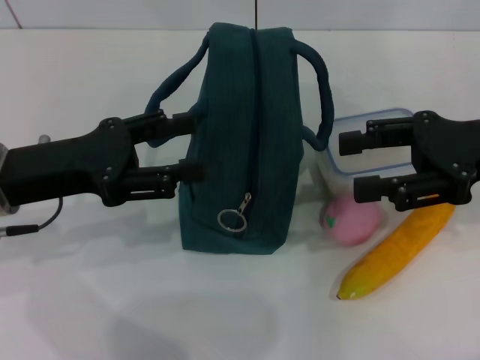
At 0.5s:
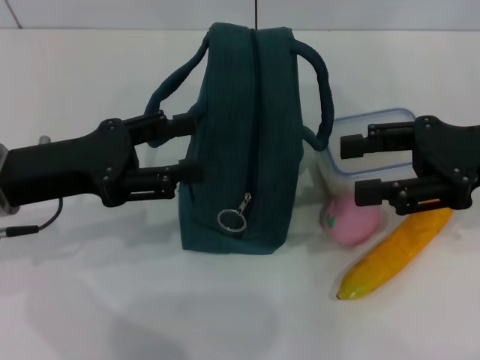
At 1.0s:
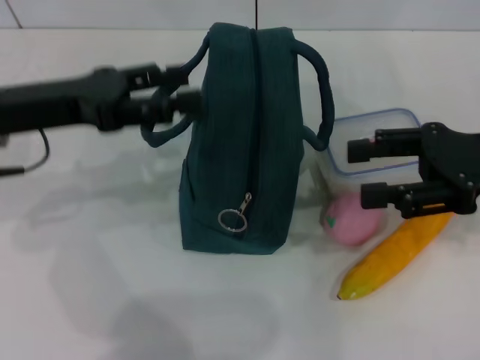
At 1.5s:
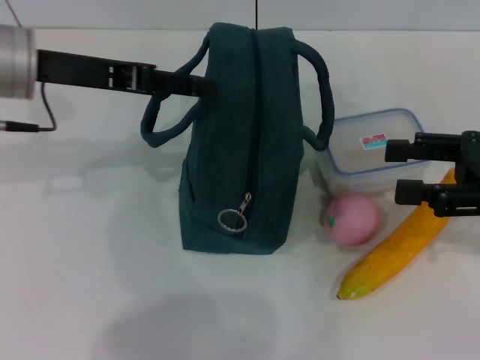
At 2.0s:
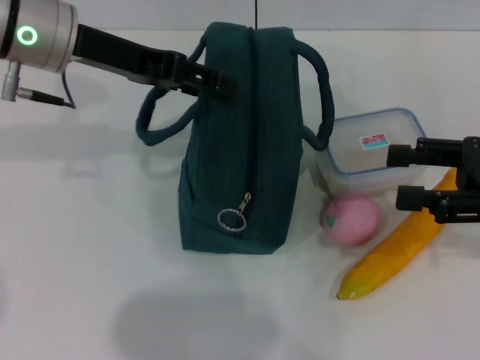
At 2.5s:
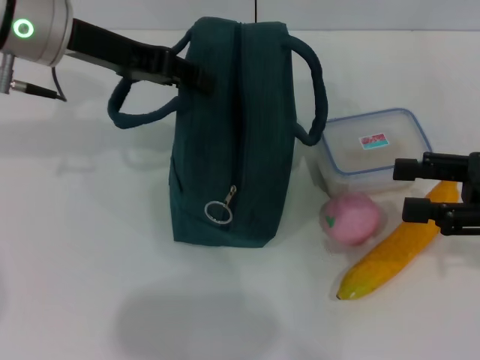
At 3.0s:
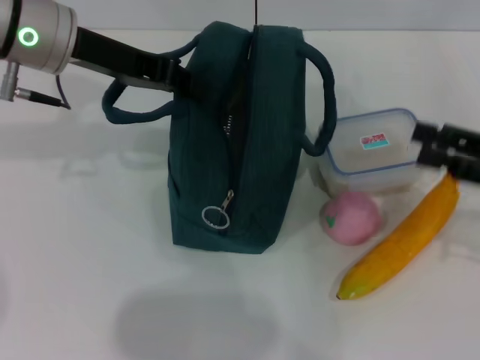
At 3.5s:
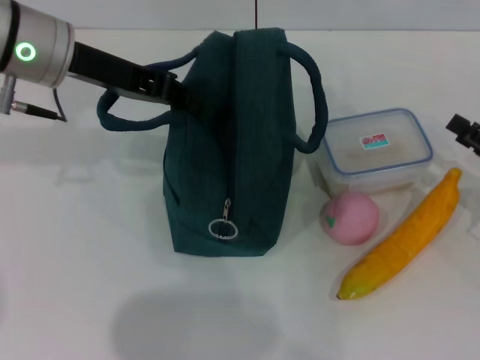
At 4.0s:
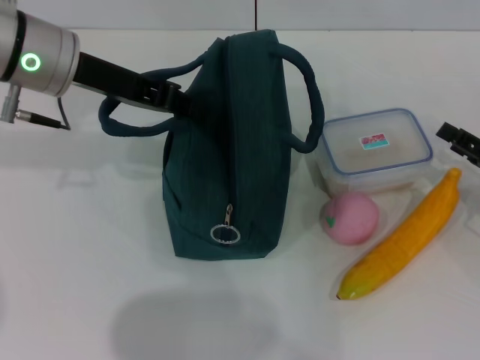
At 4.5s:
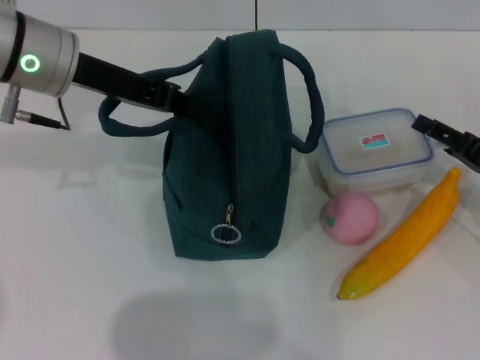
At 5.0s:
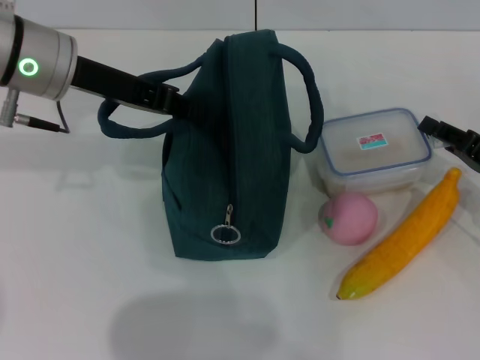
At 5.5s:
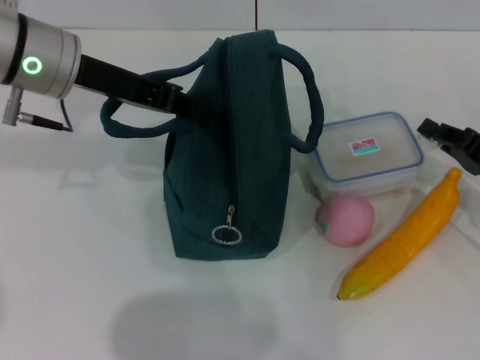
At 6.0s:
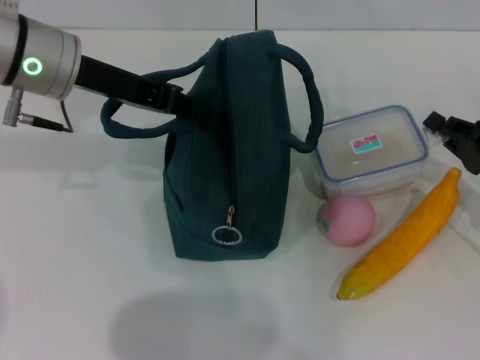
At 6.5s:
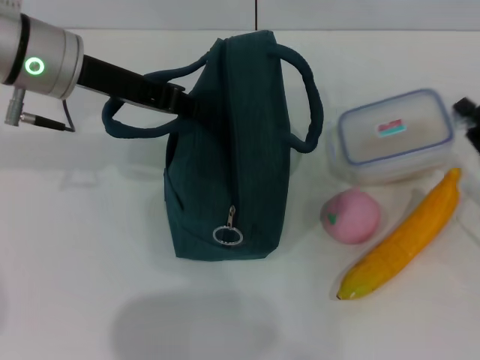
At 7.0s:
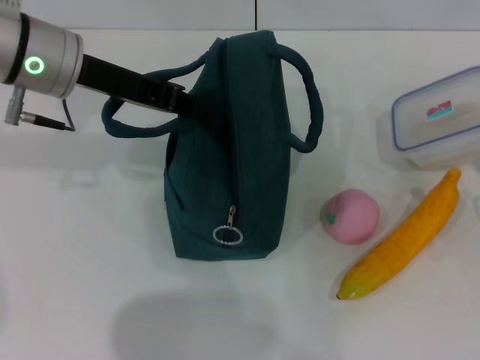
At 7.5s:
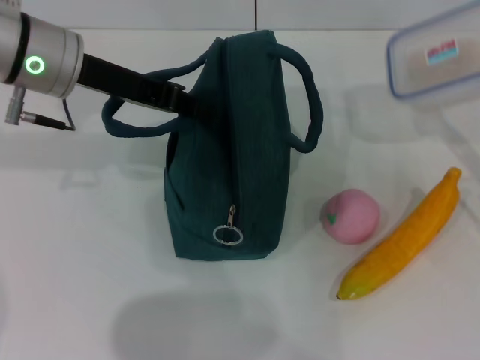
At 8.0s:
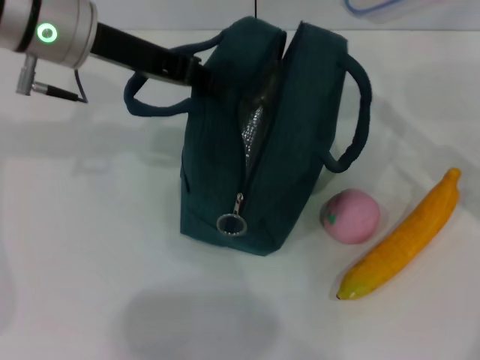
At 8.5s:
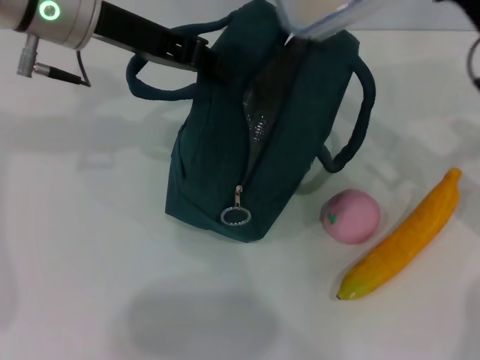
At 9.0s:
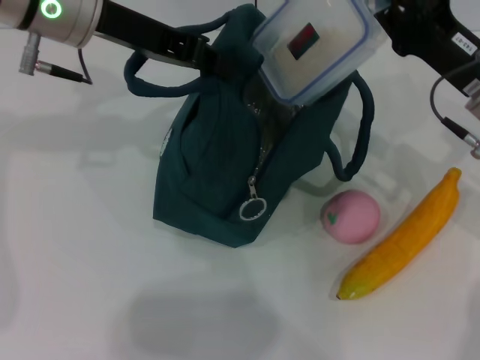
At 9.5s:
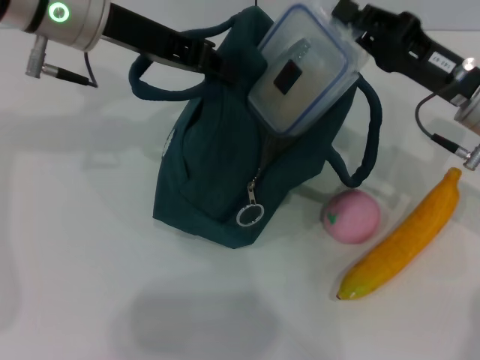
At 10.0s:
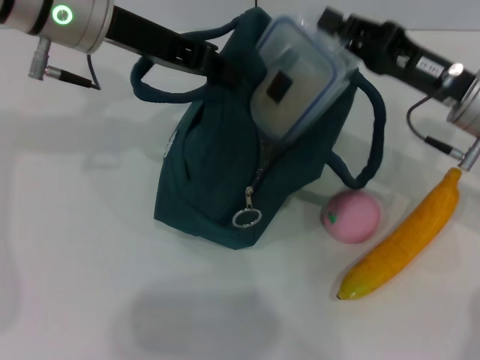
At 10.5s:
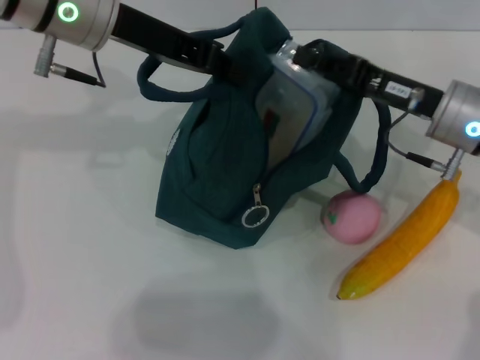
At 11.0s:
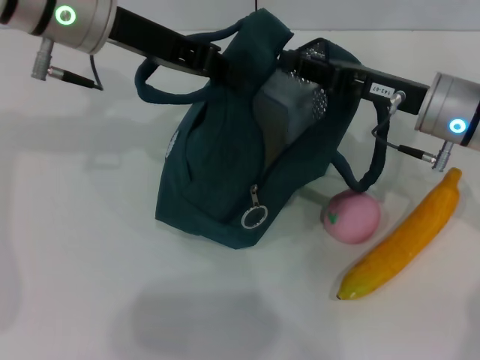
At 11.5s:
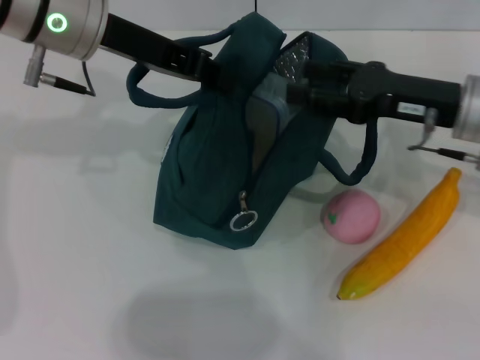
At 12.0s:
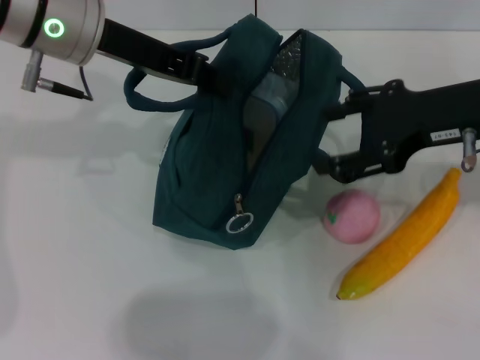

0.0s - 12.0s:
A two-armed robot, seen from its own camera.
Step, 0.0s - 3.0s: Hold the lunch bag with your left hand.
Step, 3.5s - 5.0s: Pick up the lunch box with your right hand.
Step, 6.0s - 10.5s: Place the lunch box into the lunch bag with your right hand.
0.0s - 2.0s: The right gripper shifts by about 5 cm; the left gripper is displaced forward, upward and to the right by about 15 cm.
2.0s - 4.0s: The right gripper moves downward, some 10 cm. Meanwhile the left gripper closes up.
4.0s - 6.0s: The right gripper closes its fingers.
6.0s - 8.0s: The right gripper goes about 10 cm upward.
8.0s - 10.0s: The right gripper goes about 5 cm to the left.
10.0s - 12.0s: The right gripper heads upward, covering roughly 10 cm, and opens.

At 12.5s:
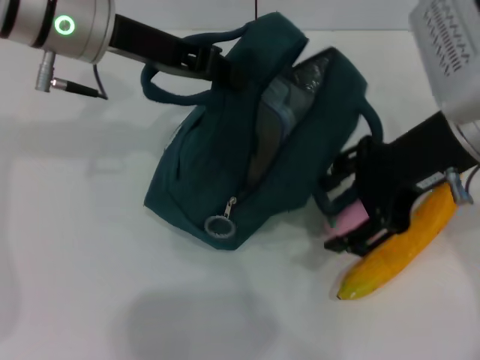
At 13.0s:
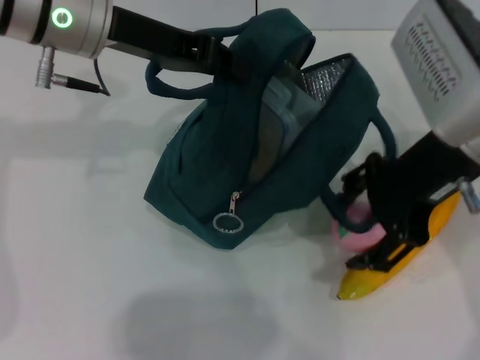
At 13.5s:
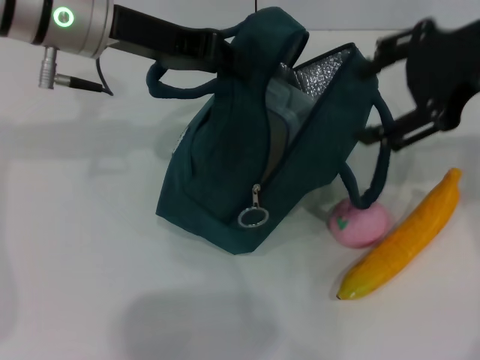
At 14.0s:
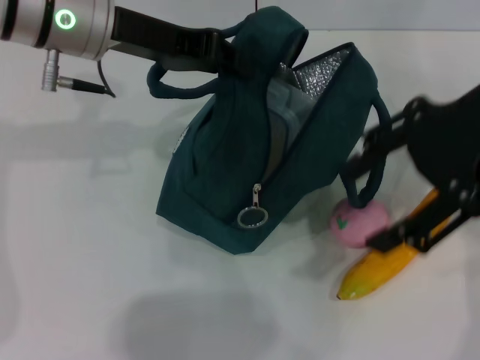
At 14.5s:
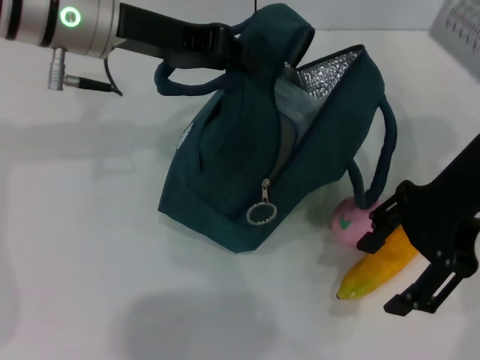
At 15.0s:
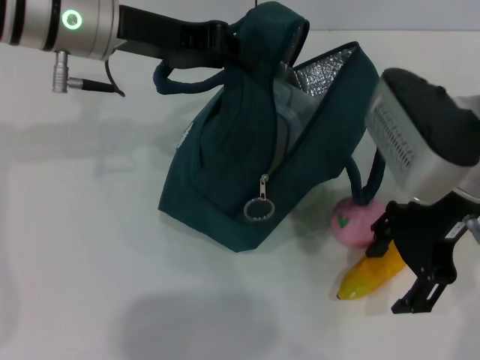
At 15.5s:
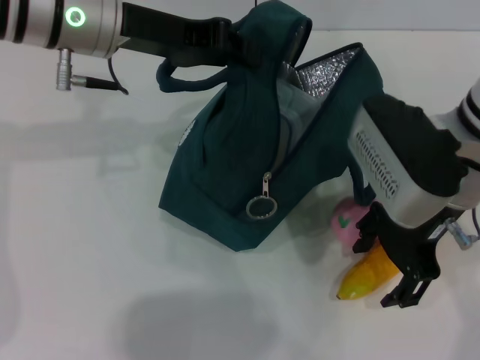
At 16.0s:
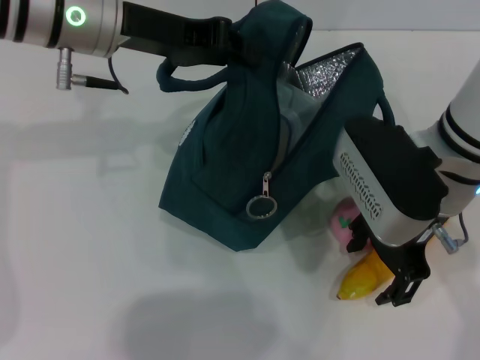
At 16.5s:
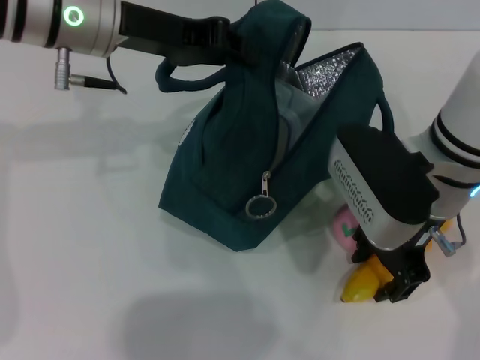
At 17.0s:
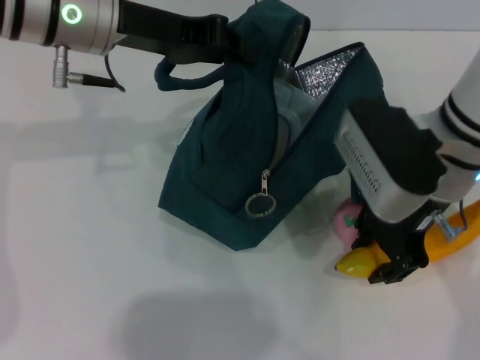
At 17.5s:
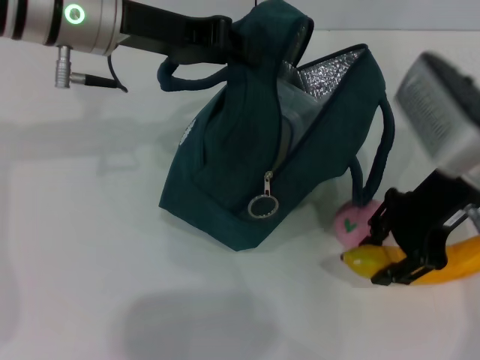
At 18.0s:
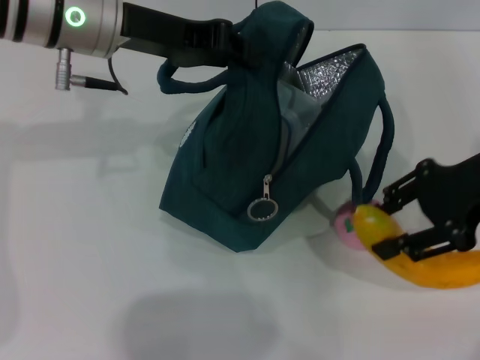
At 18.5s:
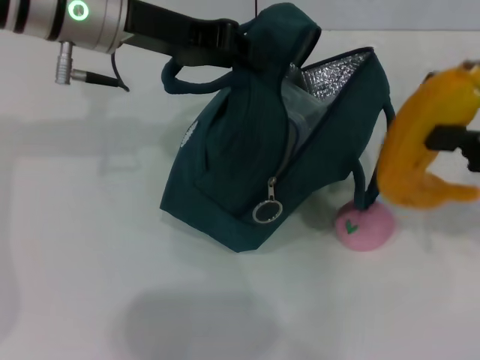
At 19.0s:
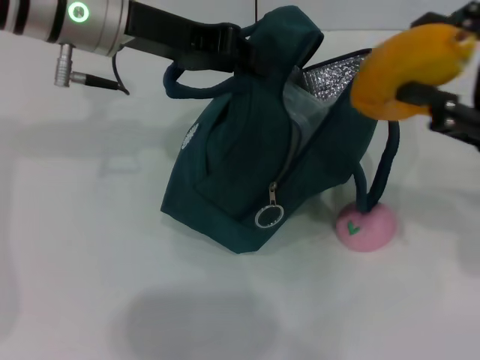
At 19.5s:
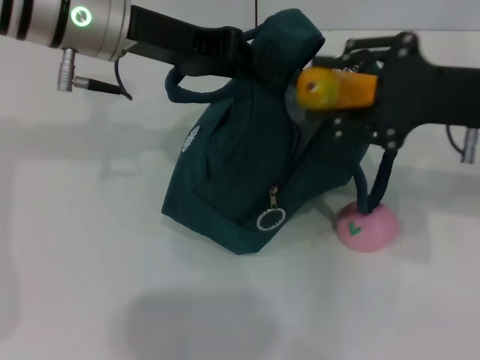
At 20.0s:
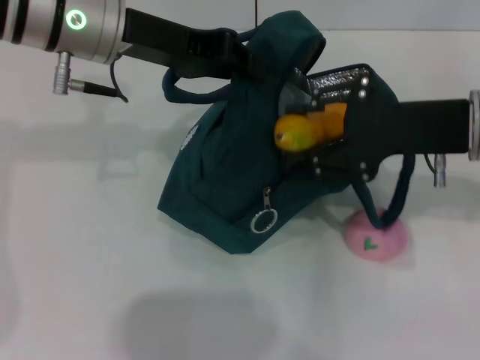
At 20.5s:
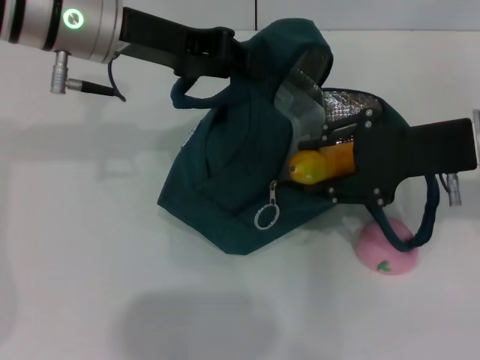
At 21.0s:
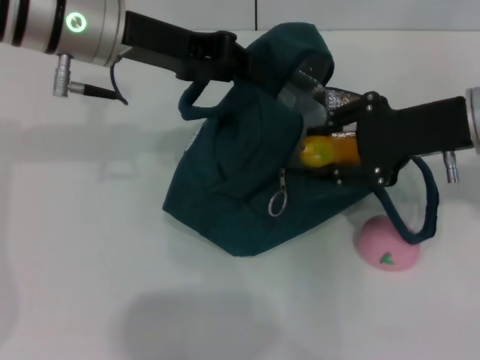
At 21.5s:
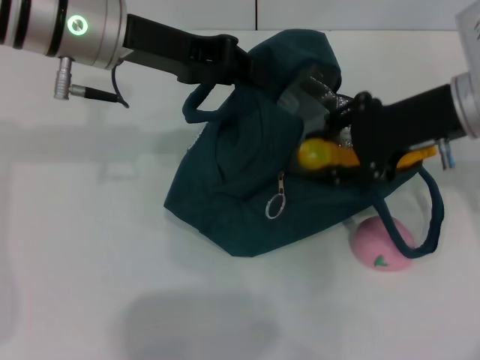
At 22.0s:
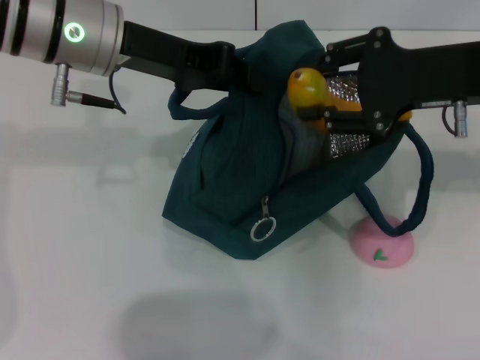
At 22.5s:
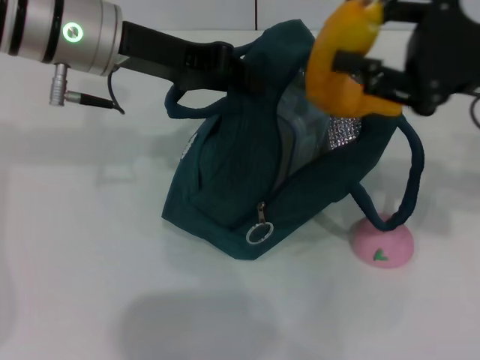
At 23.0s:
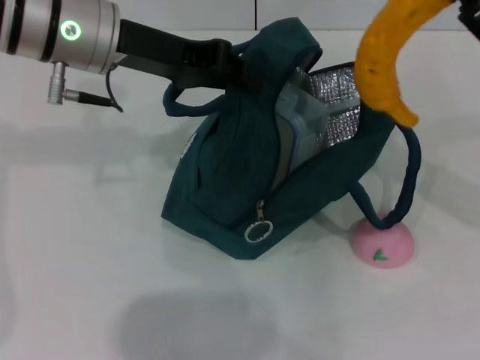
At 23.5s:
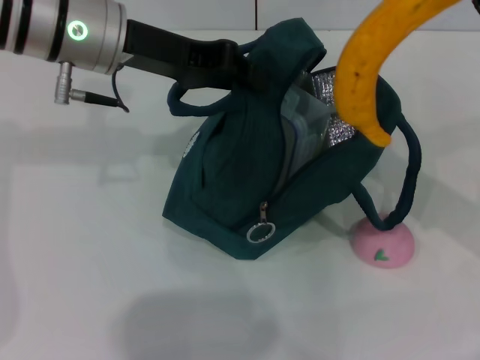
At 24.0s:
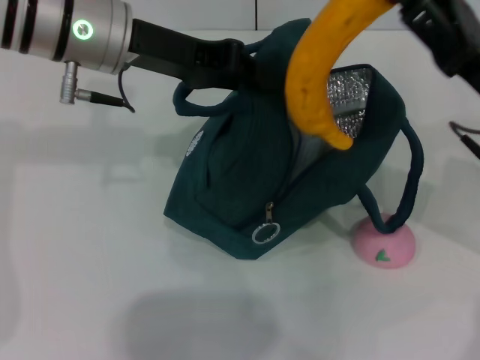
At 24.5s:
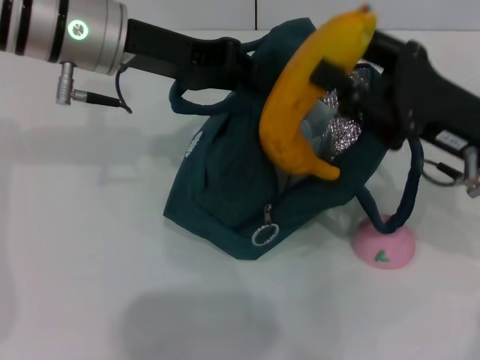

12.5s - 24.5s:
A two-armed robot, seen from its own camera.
Step, 12.5s - 16.5s: Take the banana with your right hand.
14.5s - 16.5s: The right gripper goes about 10 cm downward.
16.5s - 18.5s: The right gripper shifts roughly 15 cm to the right.
18.5s - 20.5s: The right gripper moves to the left, some 10 cm.
22.5s - 24.5s: The right gripper goes approximately 5 cm downward.

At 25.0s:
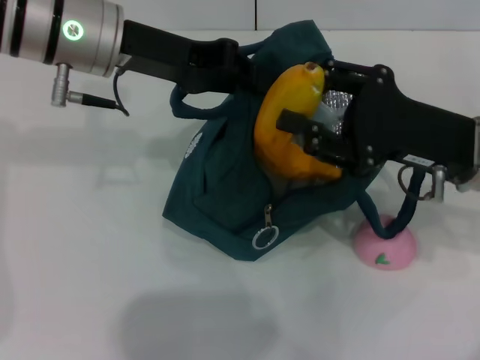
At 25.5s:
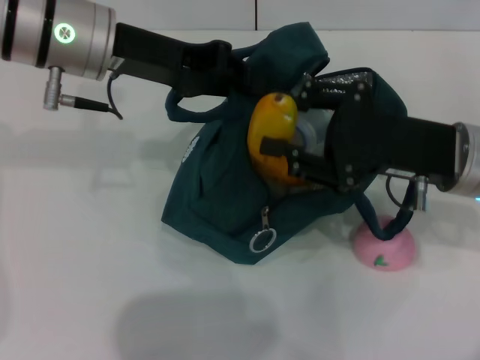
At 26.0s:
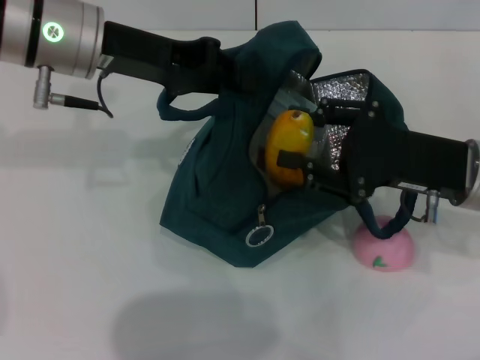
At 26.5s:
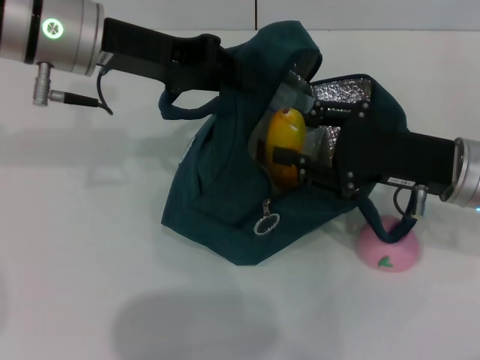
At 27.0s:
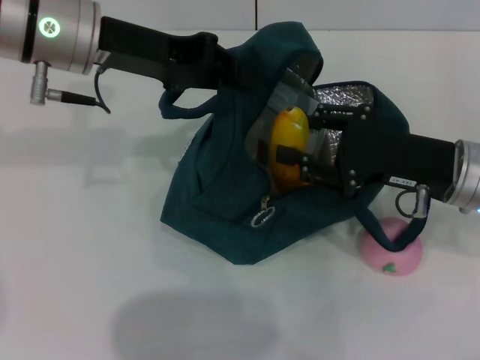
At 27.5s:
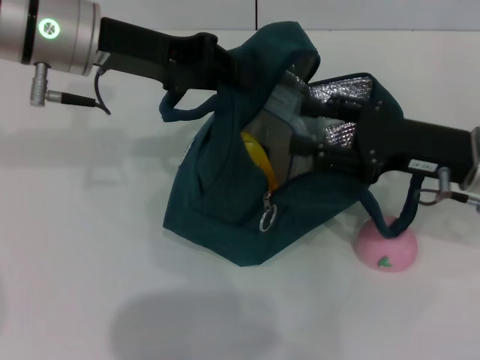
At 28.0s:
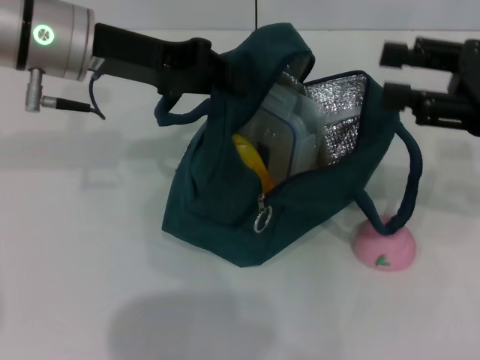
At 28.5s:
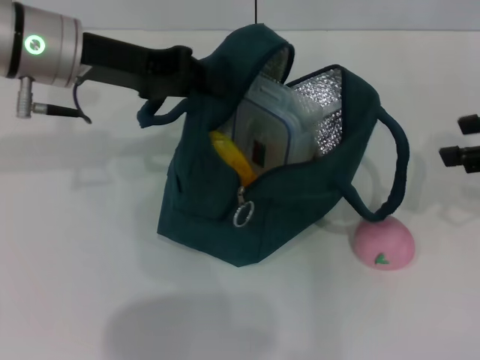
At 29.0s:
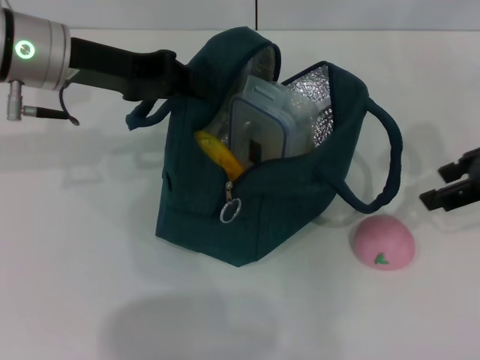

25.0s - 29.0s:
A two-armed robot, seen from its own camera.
Step, 25.0s - 27.0s: Put the banana into the lunch bag with your right hand.
25.0s - 27.0s: There are only small adjustments of the grippers.
27.0s - 29.0s: The right gripper is displaced upward and to the right by some 10 cm.
